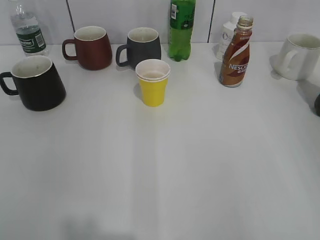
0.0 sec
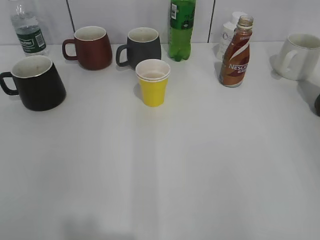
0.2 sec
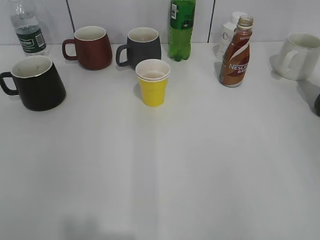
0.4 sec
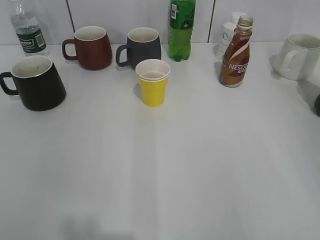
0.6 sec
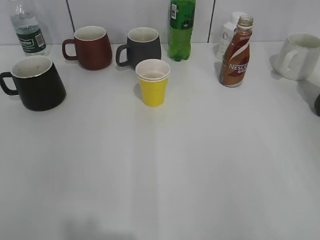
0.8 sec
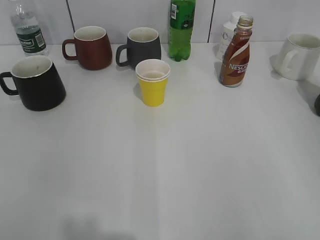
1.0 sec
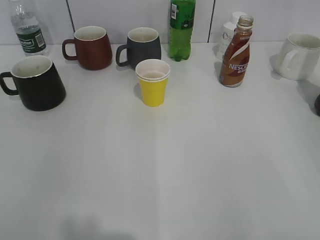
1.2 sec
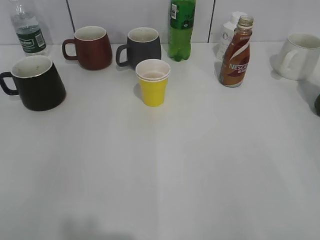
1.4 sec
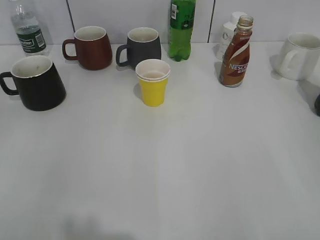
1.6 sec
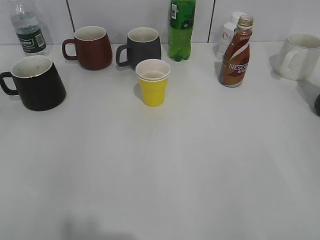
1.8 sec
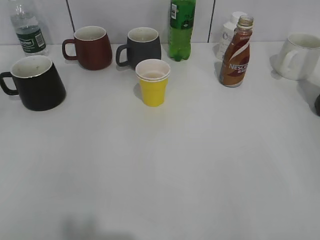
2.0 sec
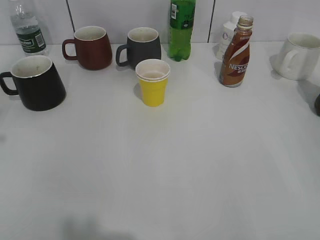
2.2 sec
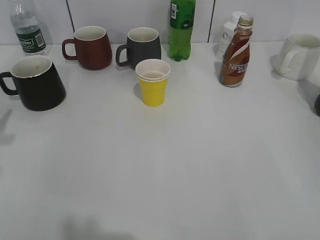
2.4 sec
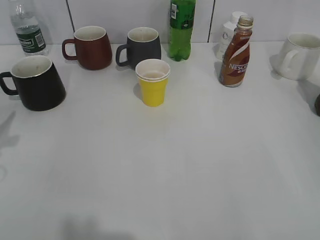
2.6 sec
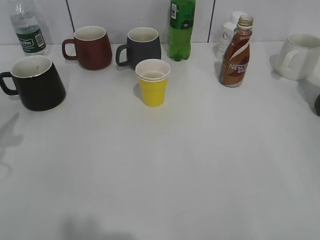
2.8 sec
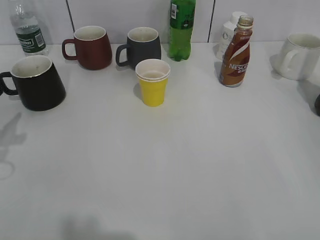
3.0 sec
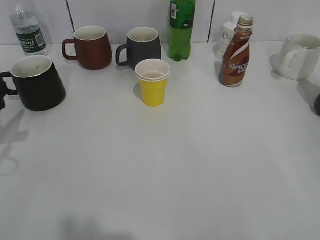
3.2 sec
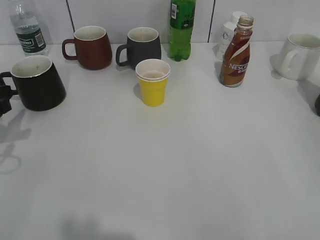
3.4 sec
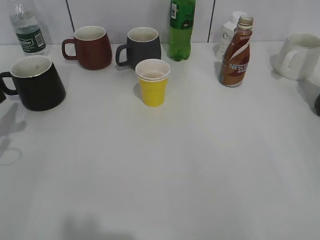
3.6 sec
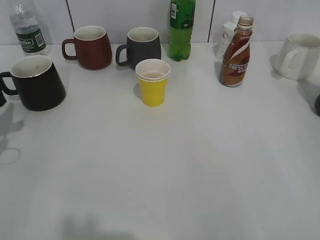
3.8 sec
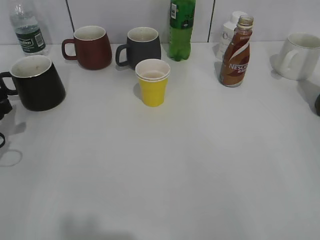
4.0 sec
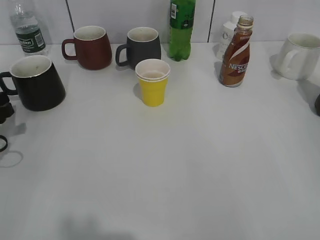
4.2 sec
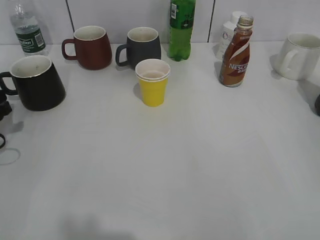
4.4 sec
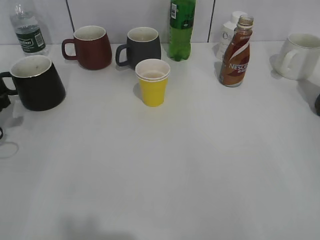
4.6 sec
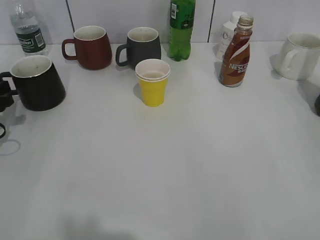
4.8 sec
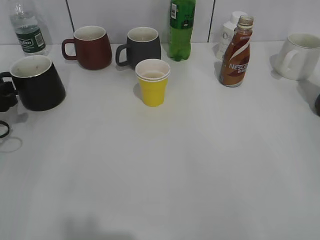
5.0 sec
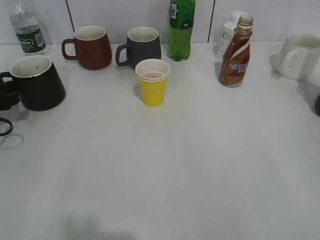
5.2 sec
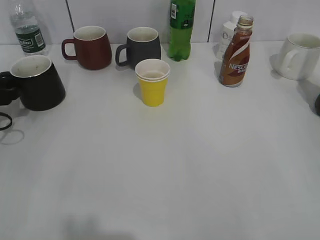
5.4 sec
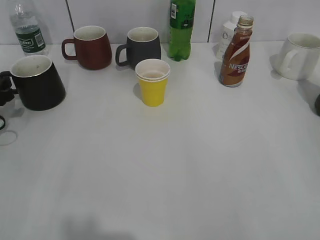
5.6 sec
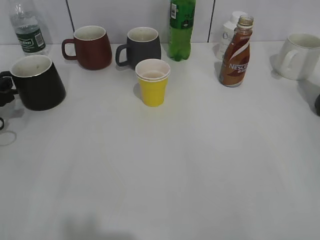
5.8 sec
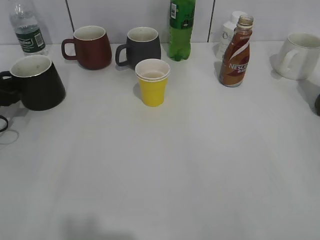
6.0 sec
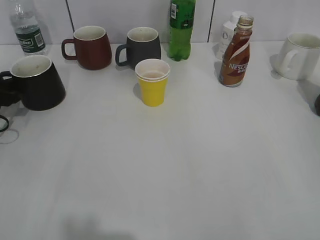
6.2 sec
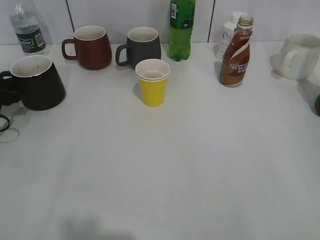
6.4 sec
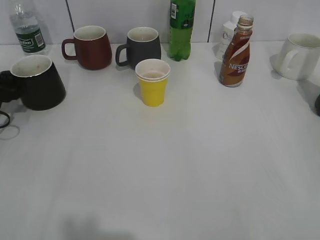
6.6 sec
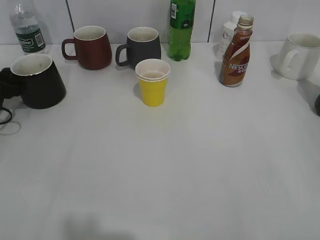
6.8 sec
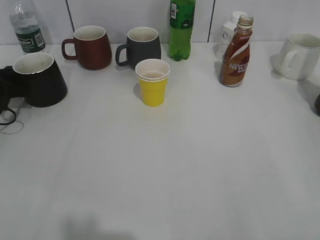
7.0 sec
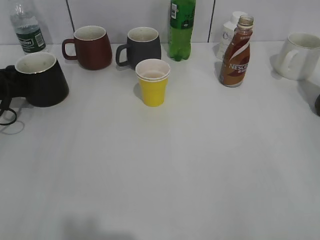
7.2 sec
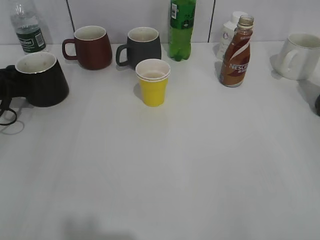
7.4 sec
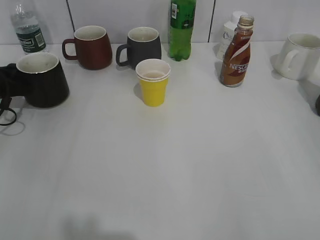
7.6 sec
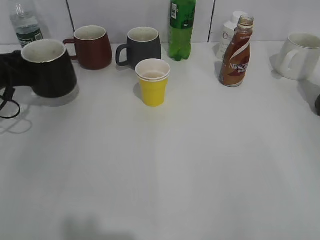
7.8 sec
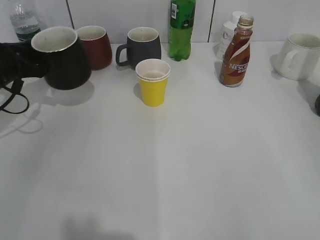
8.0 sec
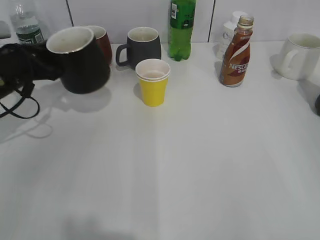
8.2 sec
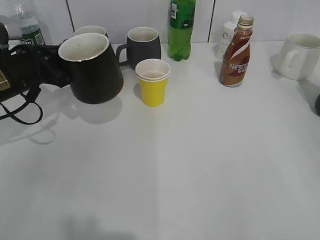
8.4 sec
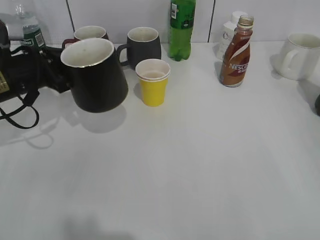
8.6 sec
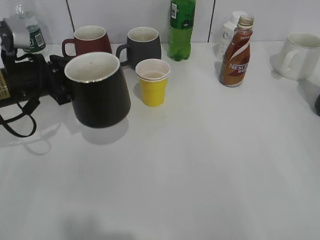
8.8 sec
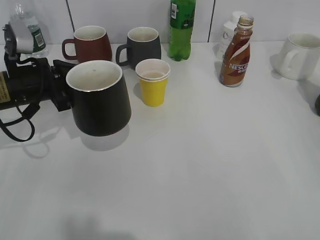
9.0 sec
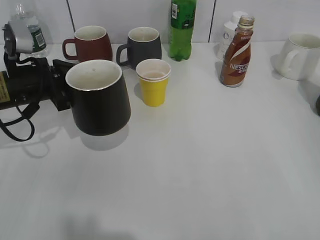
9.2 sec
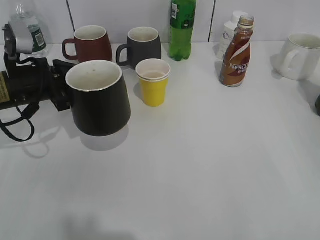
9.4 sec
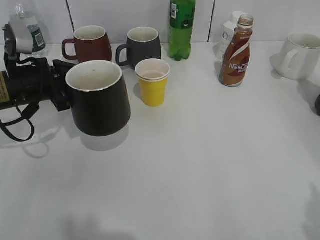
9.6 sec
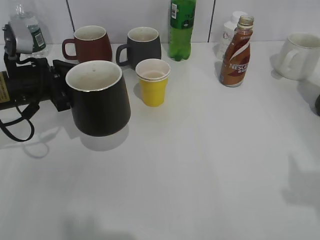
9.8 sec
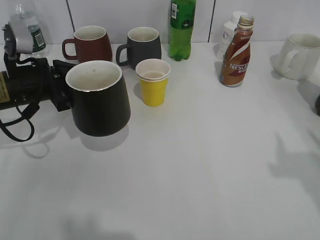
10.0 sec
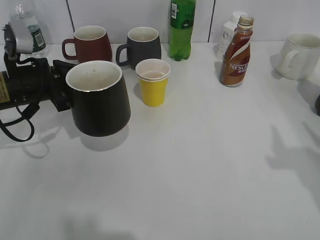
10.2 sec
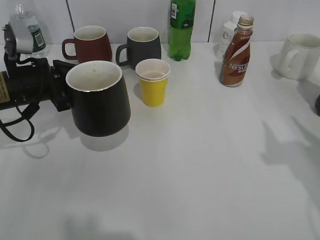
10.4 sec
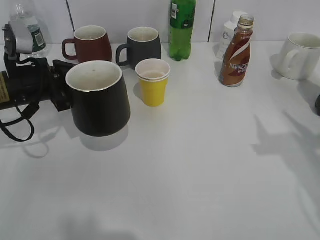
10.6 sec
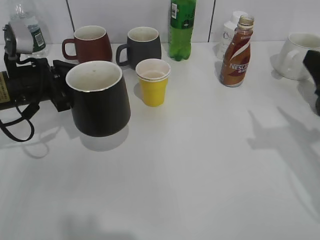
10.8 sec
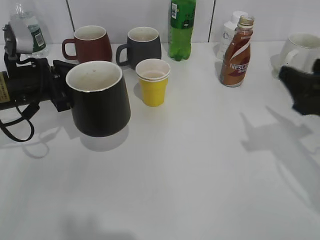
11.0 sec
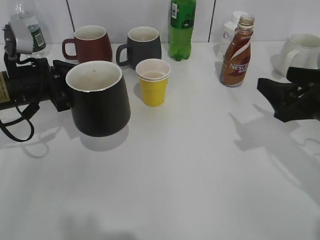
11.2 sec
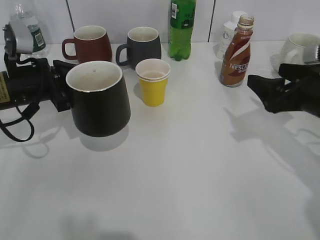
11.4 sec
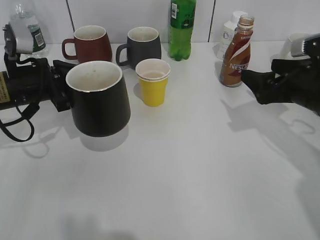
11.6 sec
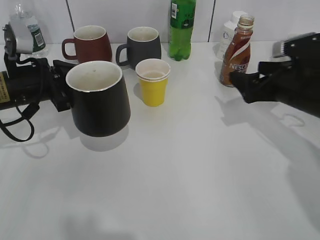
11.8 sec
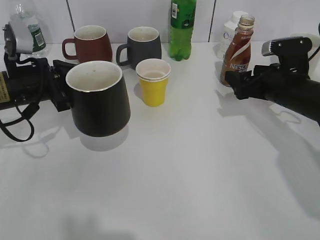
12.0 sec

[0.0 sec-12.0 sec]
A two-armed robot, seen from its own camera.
Step, 7.4 sec to 9.4 sec: Lift the black cup with left gripper.
1.6 sec to 3.0 sec: The left gripper moves forward and downward, roughly 25 cm.
3.0 sec to 4.4 sec: The left gripper is displaced downward by some 5 cm.
4.4 sec to 6.0 sec: The left gripper goes roughly 5 cm forward.
6.0 sec to 7.6 sec: The left gripper closes its fingers.
7.6 sec to 9.0 sec: The left gripper goes approximately 10 cm to the right and upward.
9.0 sec to 10.4 sec: The right gripper travels forward by roughly 15 cm.
10.4 sec to 12.0 sec: The right gripper goes about 20 cm forward and downward, and opens.

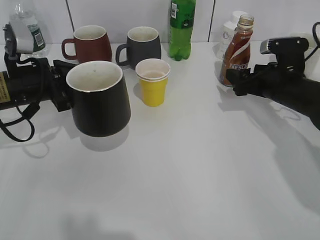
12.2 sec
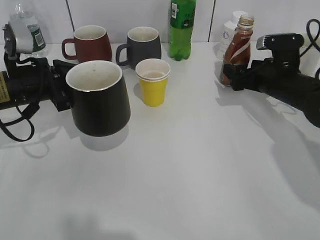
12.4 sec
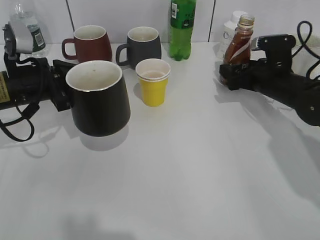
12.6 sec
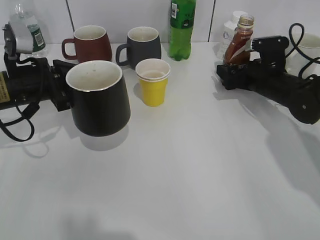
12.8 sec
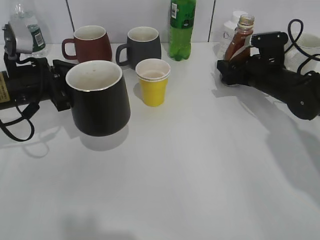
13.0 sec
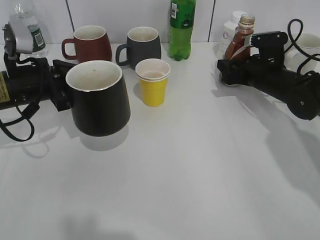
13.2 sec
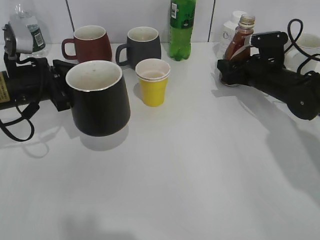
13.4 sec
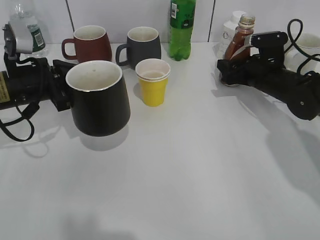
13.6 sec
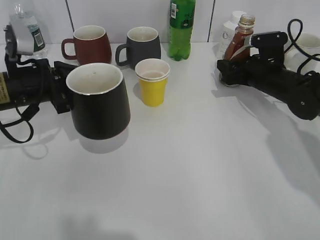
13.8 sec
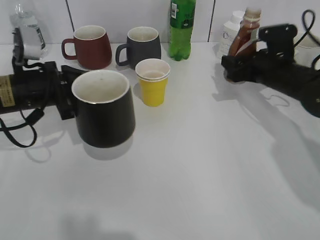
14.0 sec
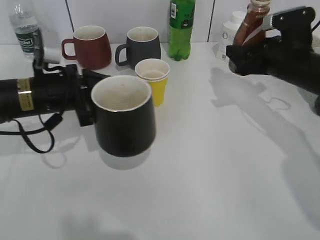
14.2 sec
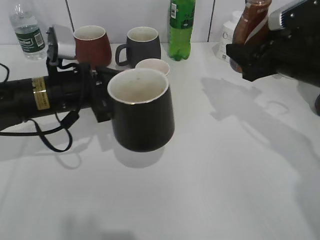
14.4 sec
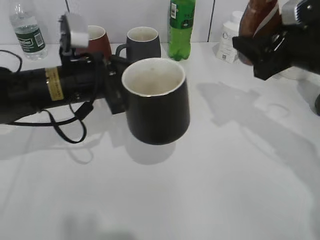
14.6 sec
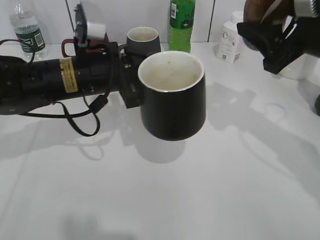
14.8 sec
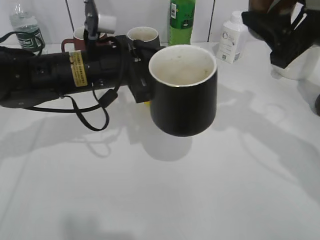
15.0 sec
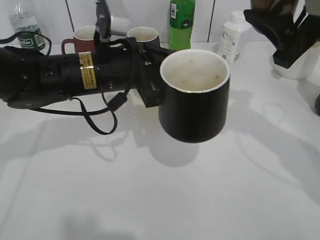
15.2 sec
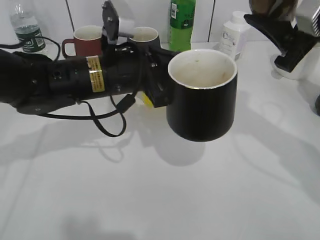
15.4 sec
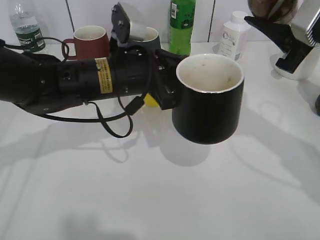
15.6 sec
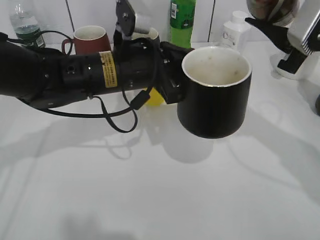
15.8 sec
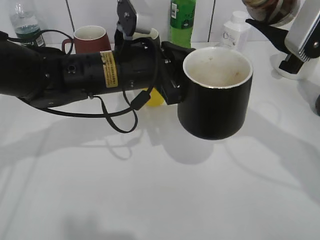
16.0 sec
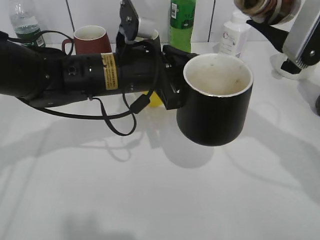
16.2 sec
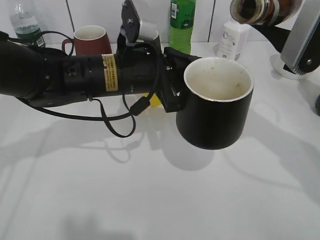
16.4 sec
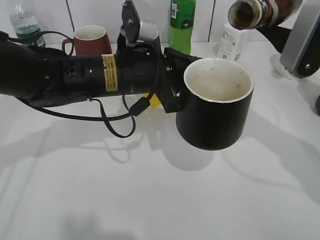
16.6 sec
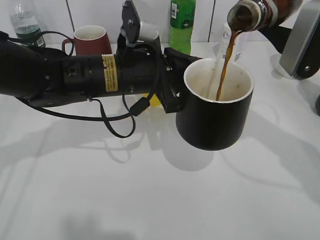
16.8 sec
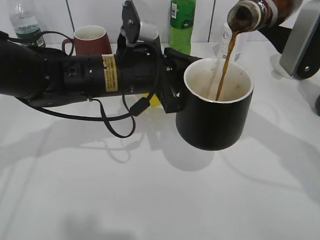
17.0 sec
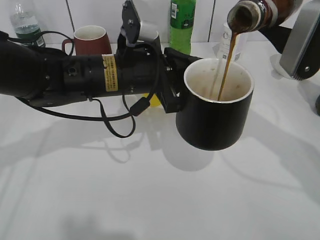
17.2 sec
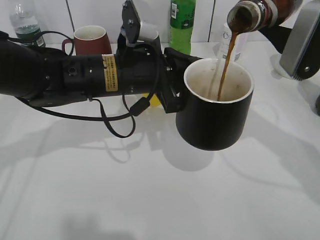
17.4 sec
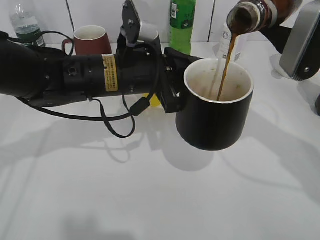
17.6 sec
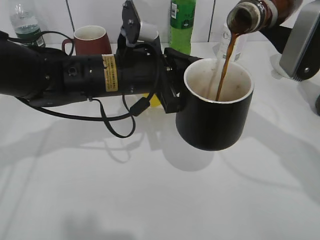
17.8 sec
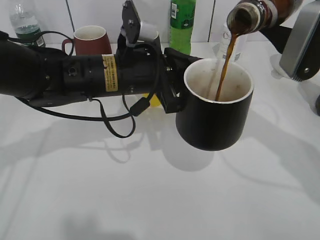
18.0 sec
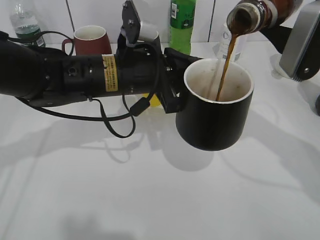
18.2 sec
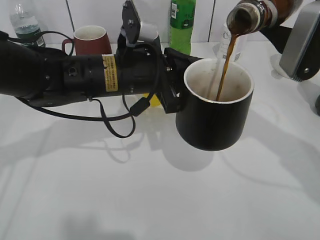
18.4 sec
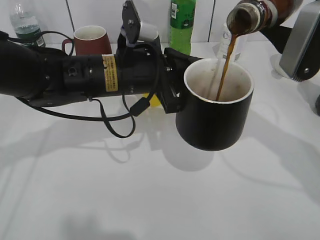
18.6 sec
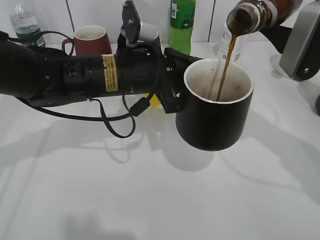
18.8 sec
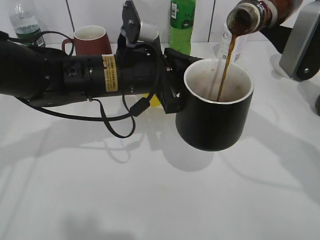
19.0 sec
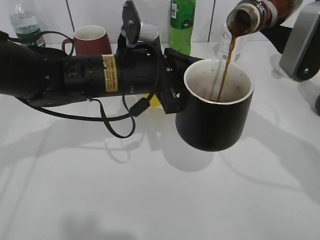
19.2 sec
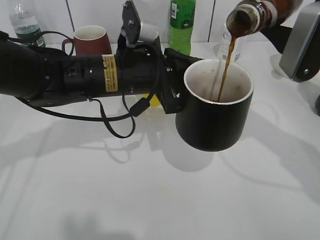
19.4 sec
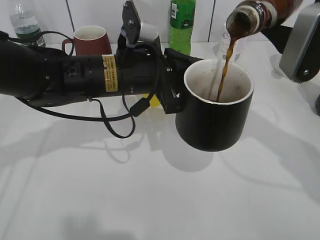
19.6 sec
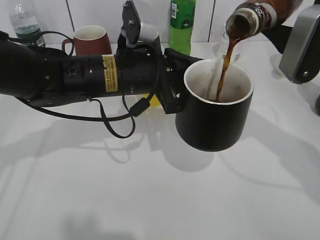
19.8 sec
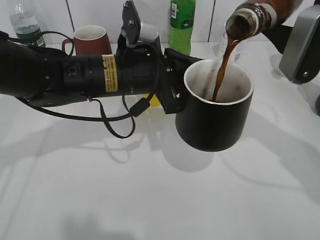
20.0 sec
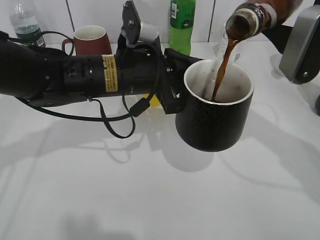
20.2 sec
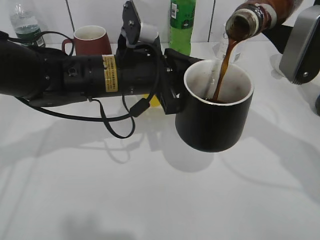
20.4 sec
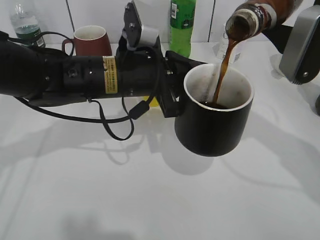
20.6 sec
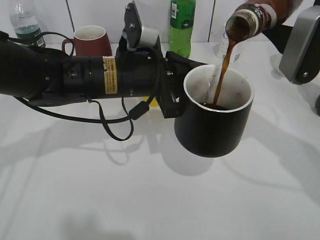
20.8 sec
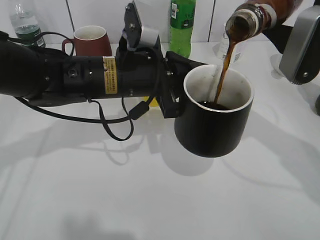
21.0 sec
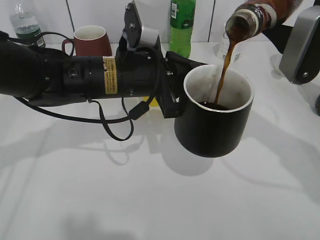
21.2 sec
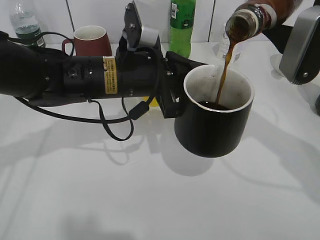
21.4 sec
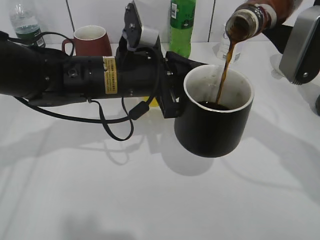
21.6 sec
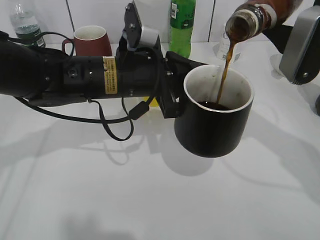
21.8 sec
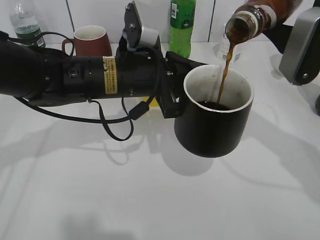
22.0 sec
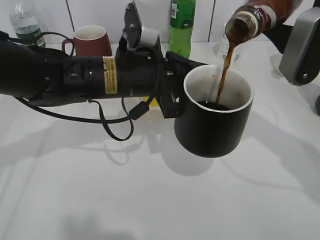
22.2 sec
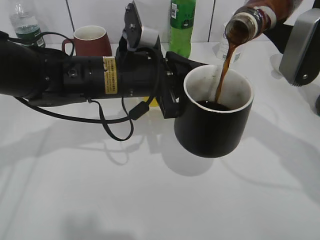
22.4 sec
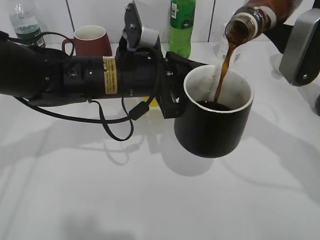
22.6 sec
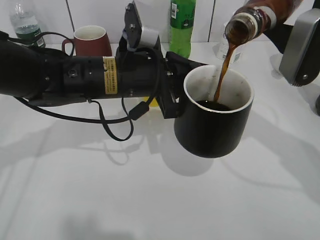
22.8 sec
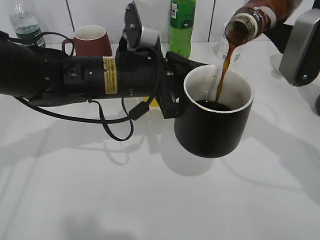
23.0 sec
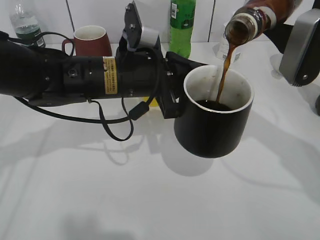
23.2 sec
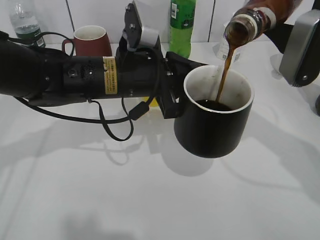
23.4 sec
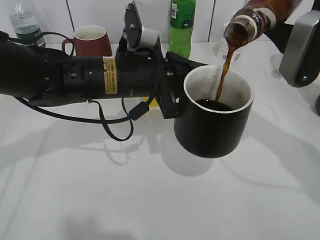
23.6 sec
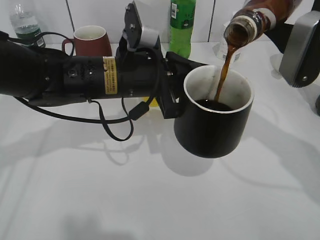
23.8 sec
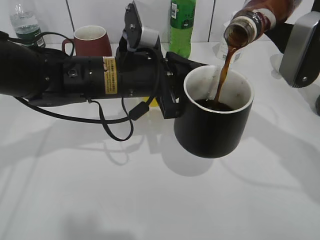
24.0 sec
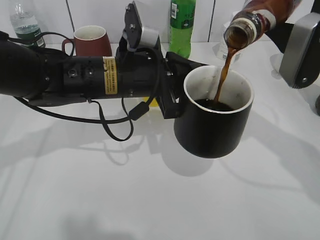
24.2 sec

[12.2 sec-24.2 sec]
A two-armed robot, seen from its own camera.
12.2 sec to 13.8 sec: The right gripper heads forward, covering about 5 cm, and closes up.
13.8 sec to 15.2 sec: The right gripper travels upward and backward by about 25 cm. Meanwhile the left gripper heads to the right, covering approximately 15 cm.
16.6 sec to 18.2 sec: The two grippers keep their place.
18.2 sec to 21.2 sec: The two grippers keep their place.
21.2 sec to 22.6 sec: Both grippers stay put.
22.6 sec to 24.2 sec: Neither gripper changes place.
